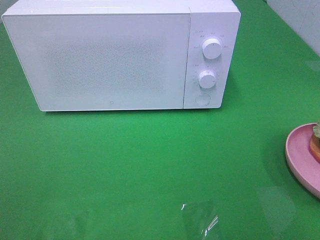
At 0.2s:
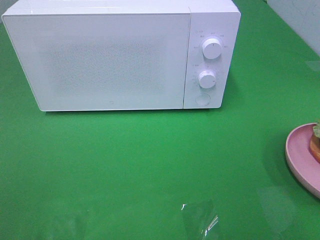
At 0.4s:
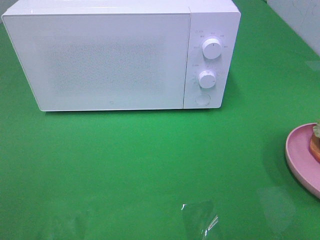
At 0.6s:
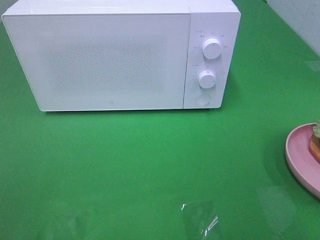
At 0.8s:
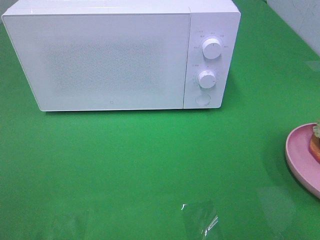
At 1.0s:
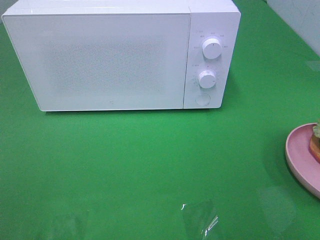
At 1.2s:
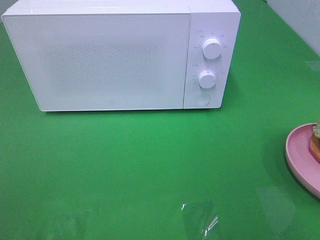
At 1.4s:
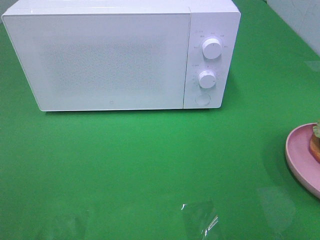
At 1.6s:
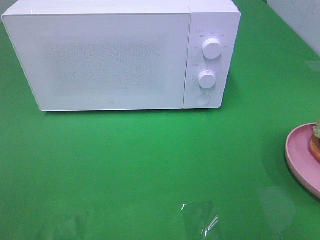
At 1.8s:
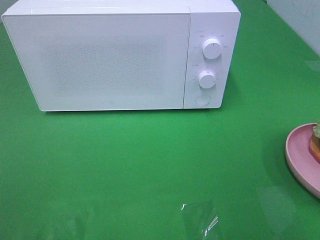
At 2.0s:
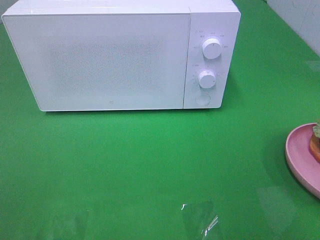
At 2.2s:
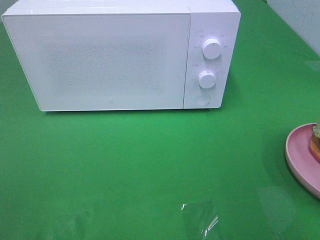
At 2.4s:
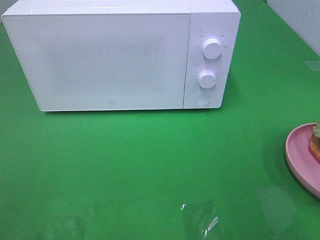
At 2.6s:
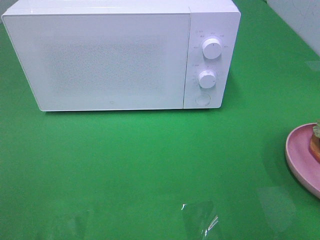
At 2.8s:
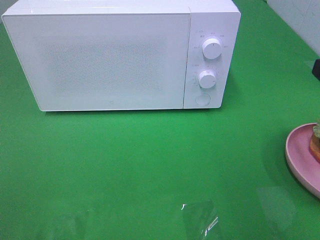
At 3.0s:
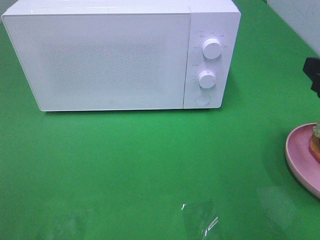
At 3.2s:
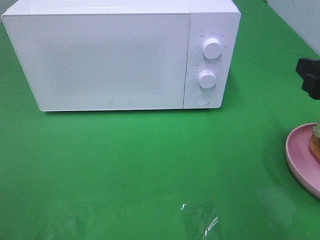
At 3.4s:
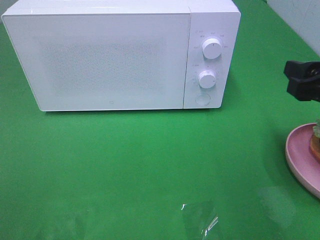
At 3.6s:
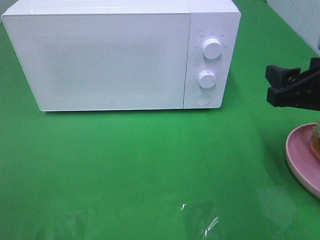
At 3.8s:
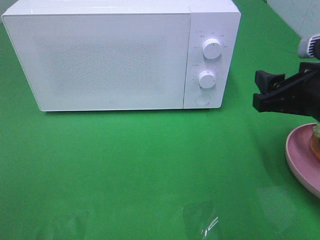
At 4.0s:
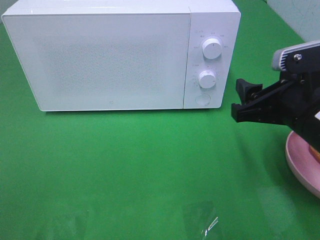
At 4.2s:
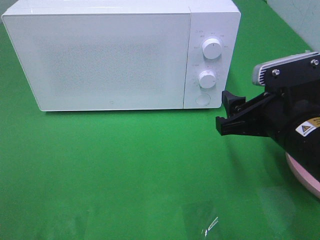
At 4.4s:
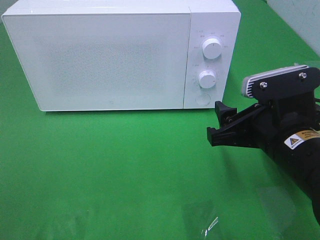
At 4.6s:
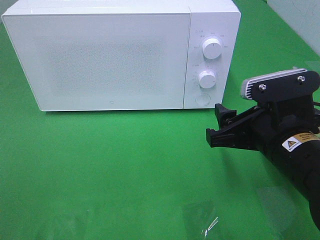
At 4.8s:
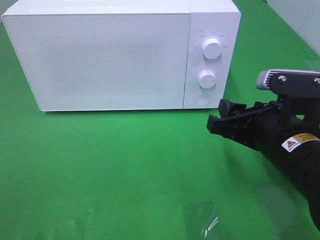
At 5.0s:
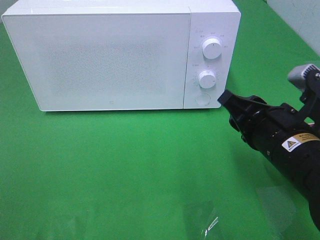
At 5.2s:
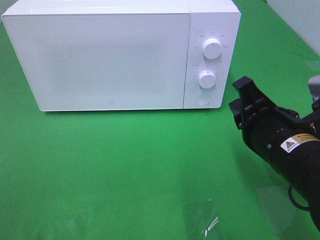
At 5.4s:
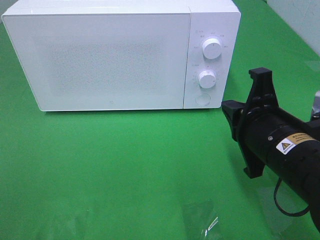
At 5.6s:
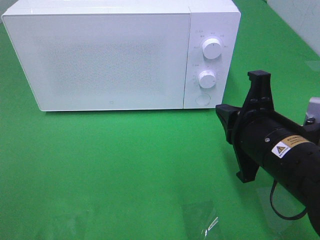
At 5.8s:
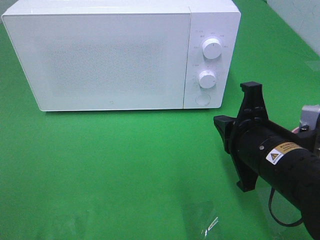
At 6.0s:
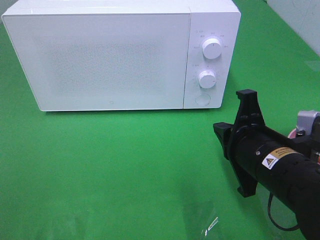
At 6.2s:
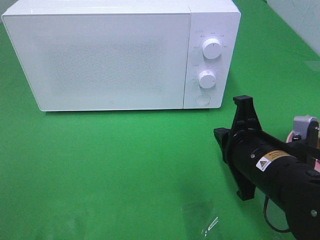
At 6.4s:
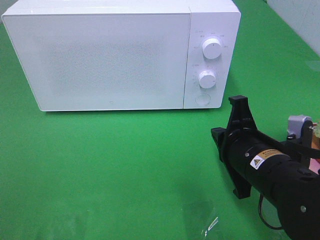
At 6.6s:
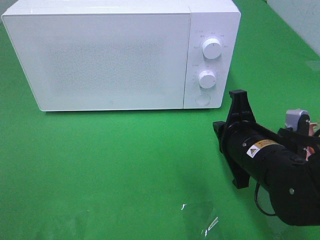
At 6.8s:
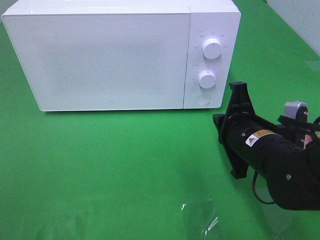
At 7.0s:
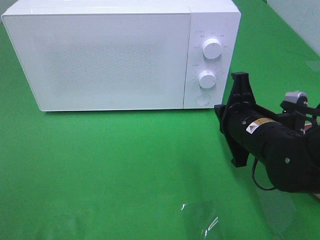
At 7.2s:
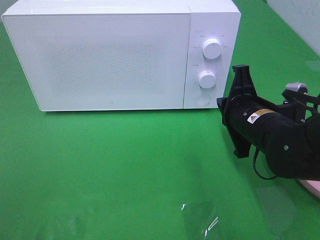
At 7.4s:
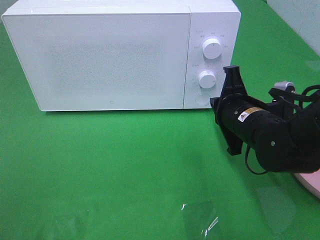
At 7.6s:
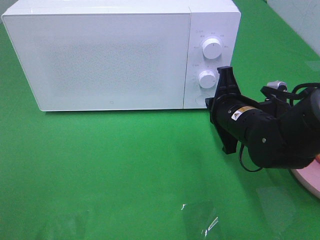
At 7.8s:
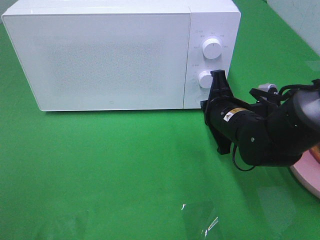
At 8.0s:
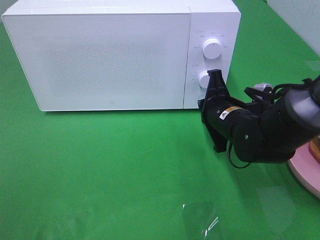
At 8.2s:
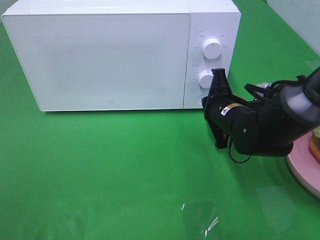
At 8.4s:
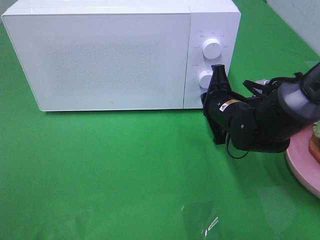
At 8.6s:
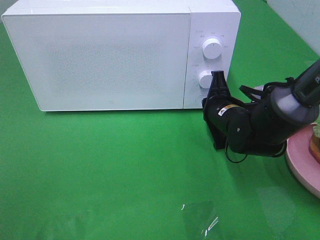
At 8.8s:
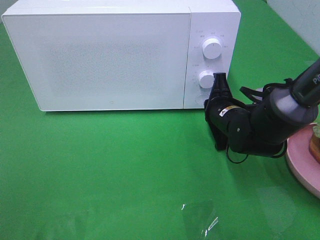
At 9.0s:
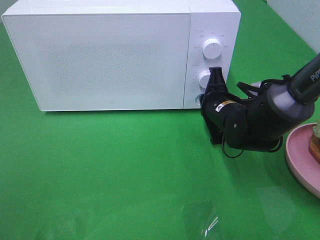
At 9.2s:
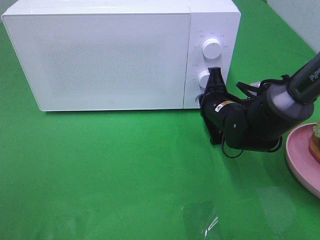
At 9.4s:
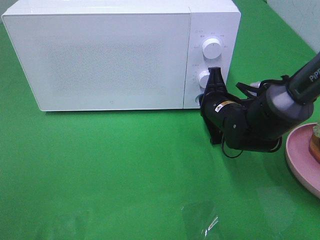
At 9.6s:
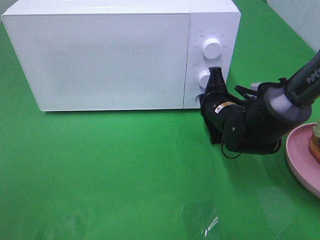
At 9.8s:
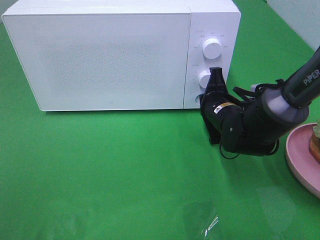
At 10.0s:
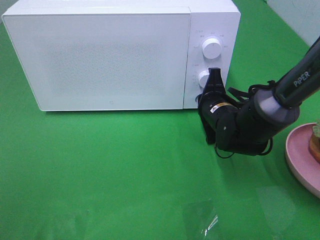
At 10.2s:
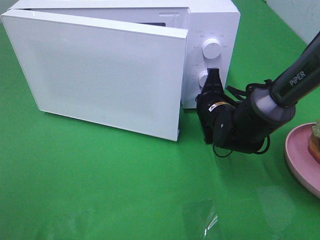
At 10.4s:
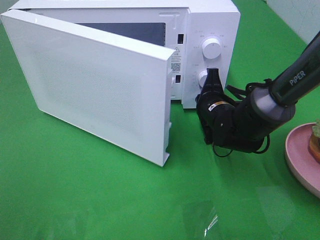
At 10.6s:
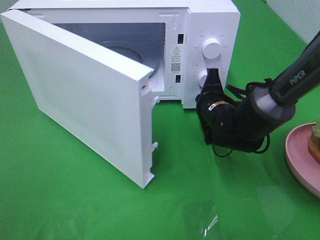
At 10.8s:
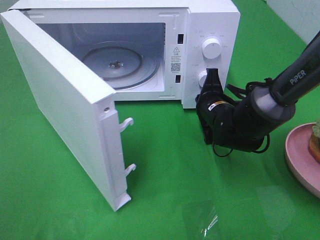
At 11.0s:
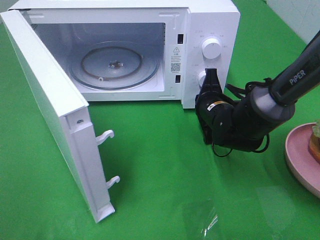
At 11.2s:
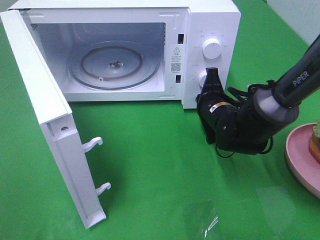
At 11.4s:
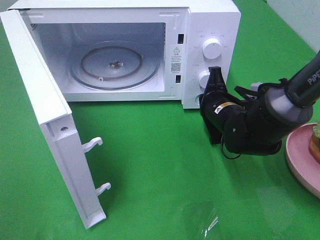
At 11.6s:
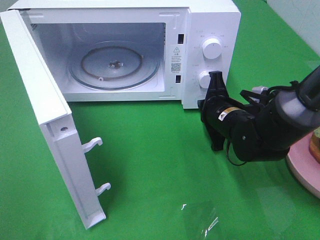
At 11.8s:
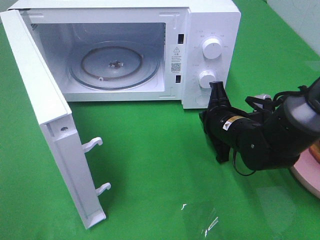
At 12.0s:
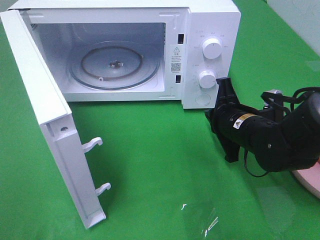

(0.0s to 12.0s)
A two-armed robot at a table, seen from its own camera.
Task of the whole recording: Heat the burger.
Step, 0.0s - 11.4s: Right hand: press the switch.
1.6s - 3.0s: The right gripper heads forward and downward, covering approximately 15 cm.
3.0s - 4.4s: The right gripper travels to the left and downward by approximately 15 cm.
4.4s - 6.0s: The right gripper closes up.
6.0s - 7.6s: The right gripper goes about 10 cm forward.
7.6s - 9.0s: The right gripper shifts about 5 cm forward.
9.0s - 10.4s: There are only small adjustments of the grippers.
10.4s - 12.0s: The right gripper travels backward by some 5 cm.

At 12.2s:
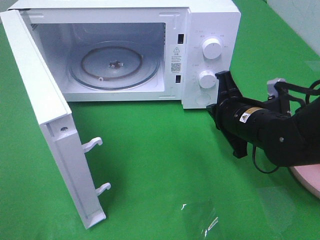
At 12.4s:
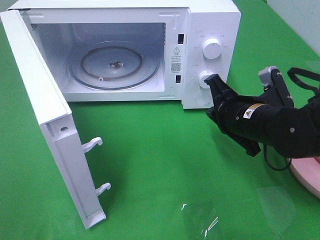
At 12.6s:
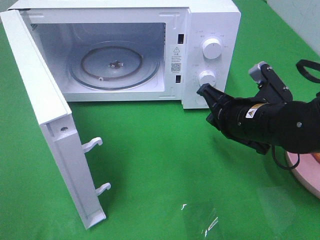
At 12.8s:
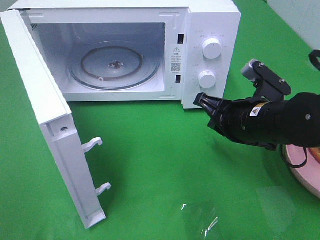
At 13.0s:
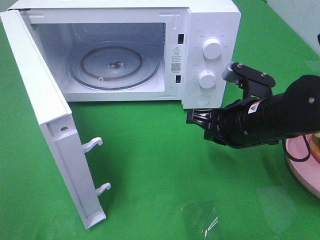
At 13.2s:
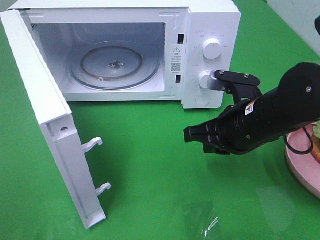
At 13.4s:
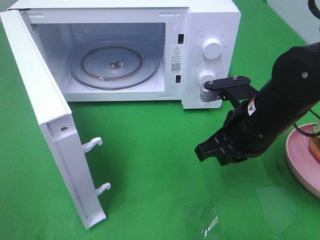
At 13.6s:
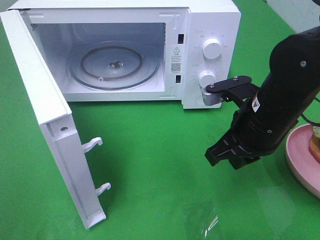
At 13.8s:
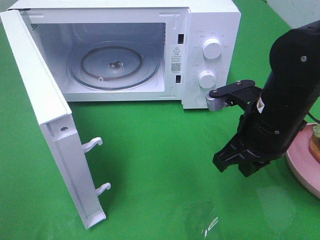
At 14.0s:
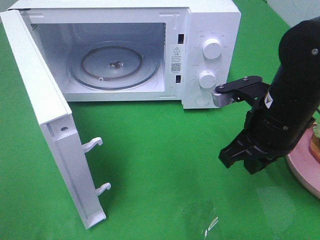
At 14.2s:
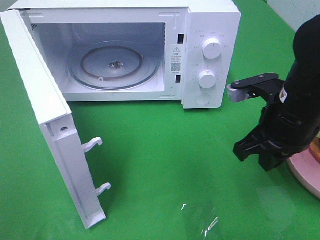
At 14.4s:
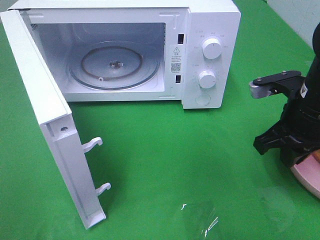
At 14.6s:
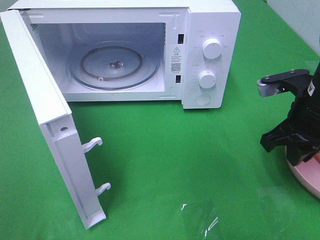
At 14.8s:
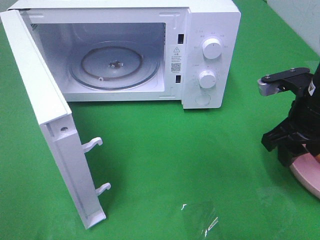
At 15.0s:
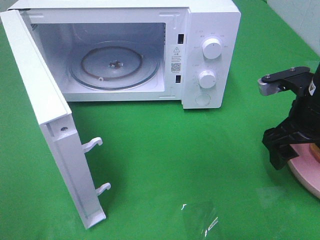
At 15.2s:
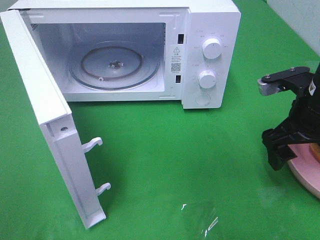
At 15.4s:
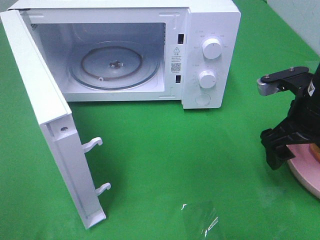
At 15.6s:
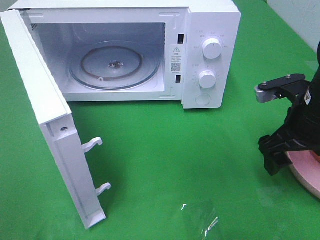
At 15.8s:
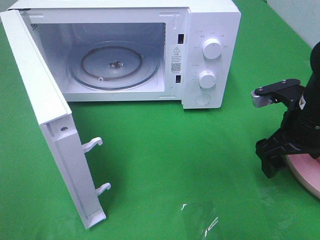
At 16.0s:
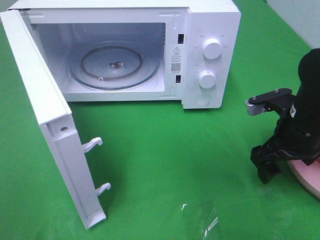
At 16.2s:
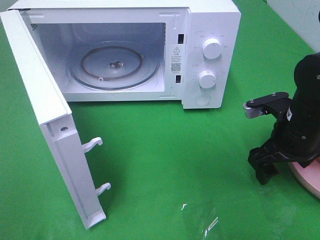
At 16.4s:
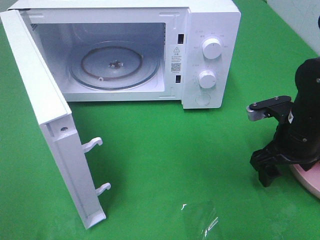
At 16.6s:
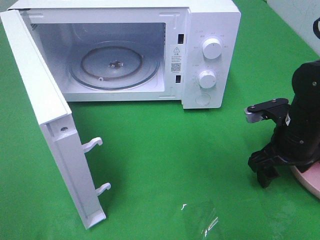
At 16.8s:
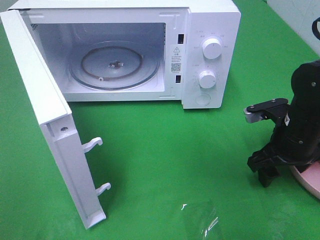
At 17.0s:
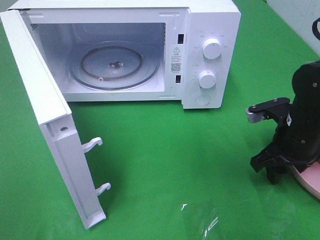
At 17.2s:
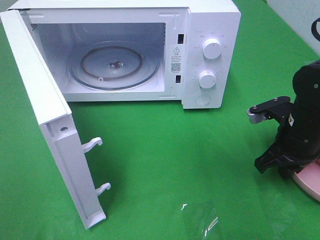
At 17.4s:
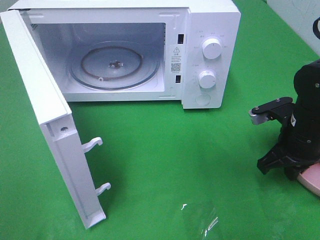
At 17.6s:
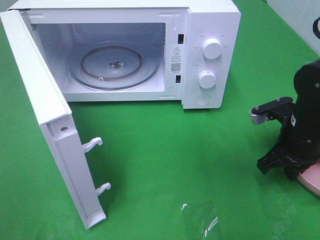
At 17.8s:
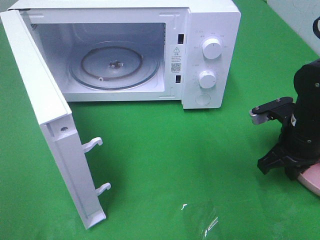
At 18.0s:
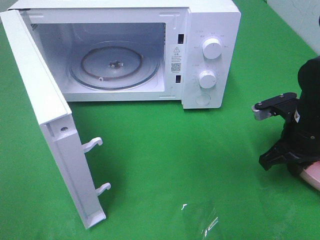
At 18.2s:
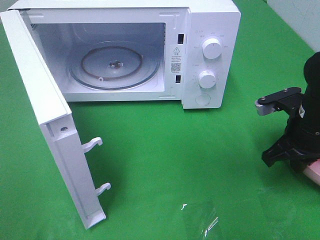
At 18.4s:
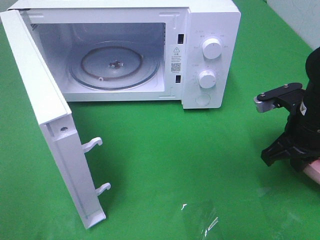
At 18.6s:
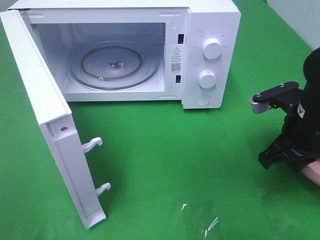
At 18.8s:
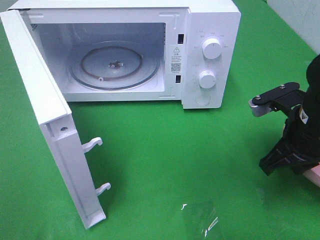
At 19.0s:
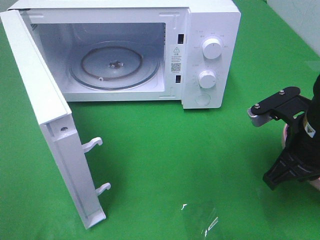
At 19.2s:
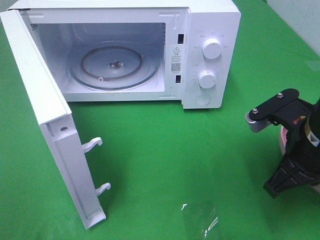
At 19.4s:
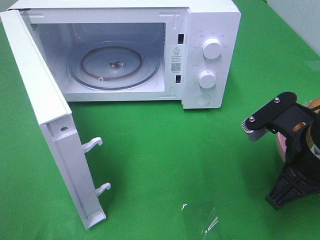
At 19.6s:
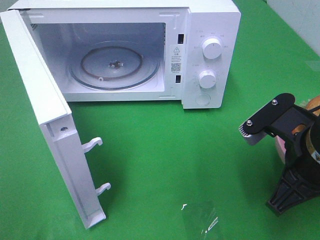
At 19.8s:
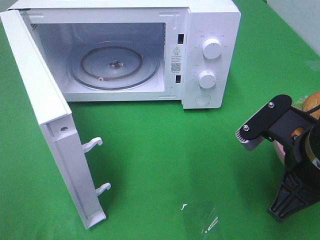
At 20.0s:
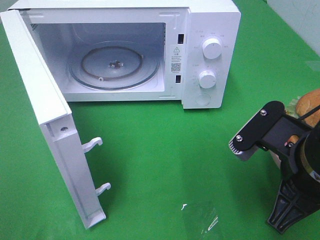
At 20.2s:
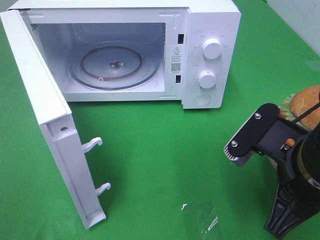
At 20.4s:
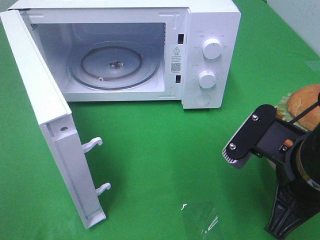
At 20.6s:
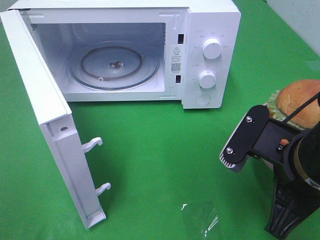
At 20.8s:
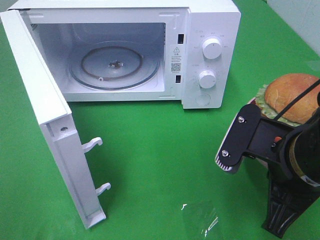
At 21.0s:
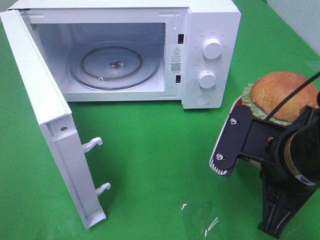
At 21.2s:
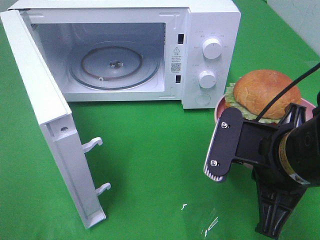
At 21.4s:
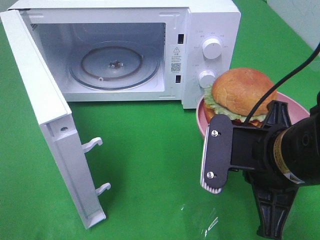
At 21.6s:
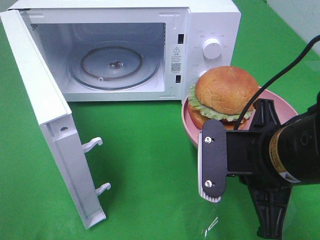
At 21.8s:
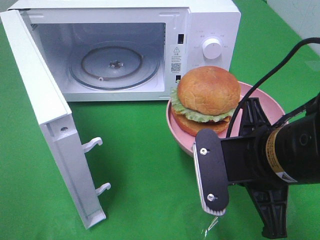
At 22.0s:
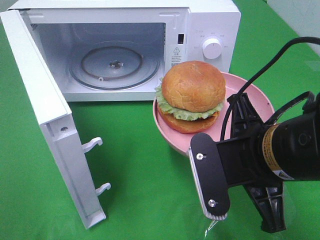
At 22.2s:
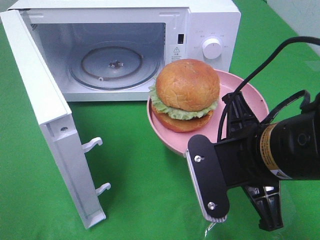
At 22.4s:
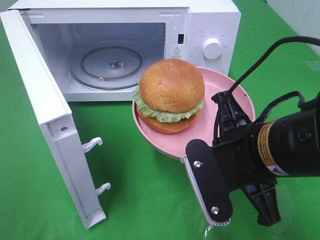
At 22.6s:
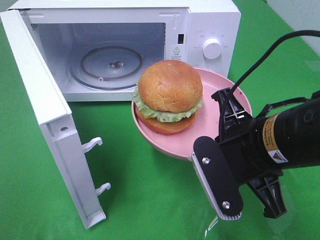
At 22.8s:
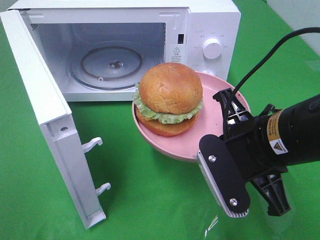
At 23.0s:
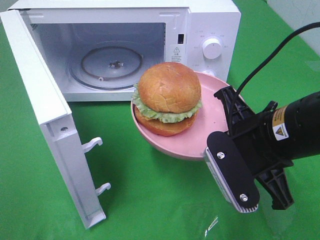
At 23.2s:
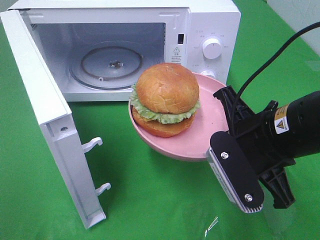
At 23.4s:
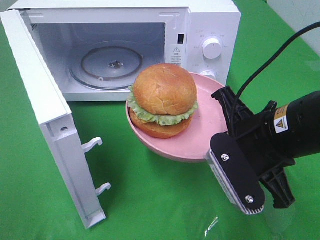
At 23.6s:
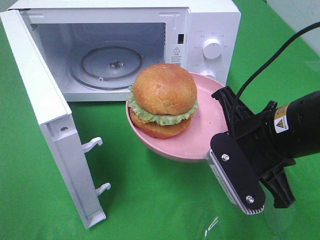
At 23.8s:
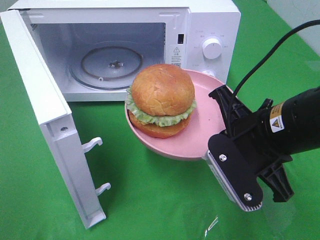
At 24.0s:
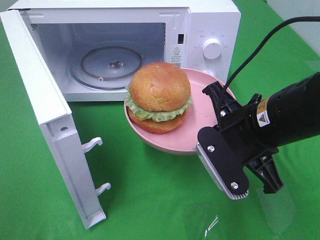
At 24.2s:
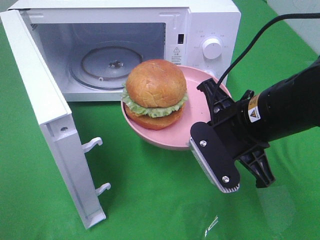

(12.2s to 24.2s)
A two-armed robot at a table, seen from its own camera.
Task of the whole recording: Heat the burger.
Step, 12.2s - 17.2s: Right hand: grab the plate with the hamburger.
12.2s - 13.8s: The right gripper shifts roughly 5 cm upward.
13.8s - 15.2s: The right gripper is displaced to the right by about 10 cm, and opens its fingers.
15.2s - 16.6s: The right gripper heads downward, covering about 10 cm.
16.6s - 18.2s: The right gripper closes.
18.2s - 19.8s: The right gripper goes approximately 15 cm backward, to the left and upward.
22.6s - 24.2s: The grippers make only small movements.
